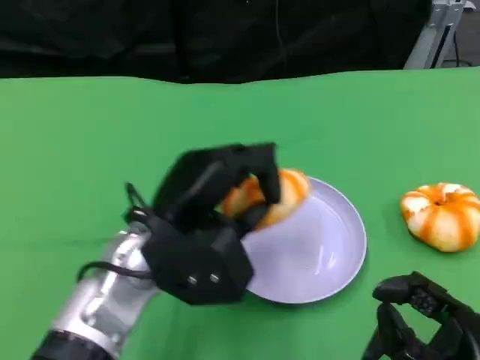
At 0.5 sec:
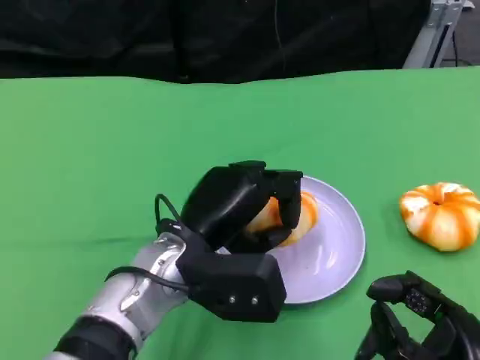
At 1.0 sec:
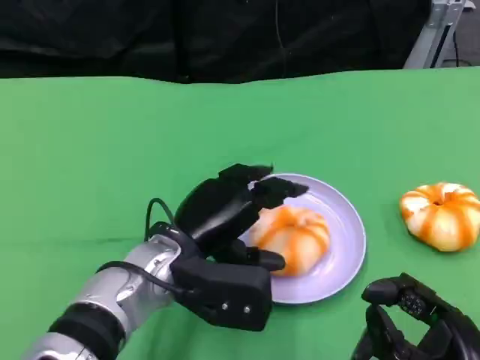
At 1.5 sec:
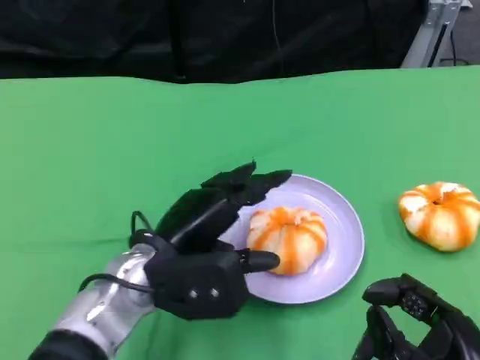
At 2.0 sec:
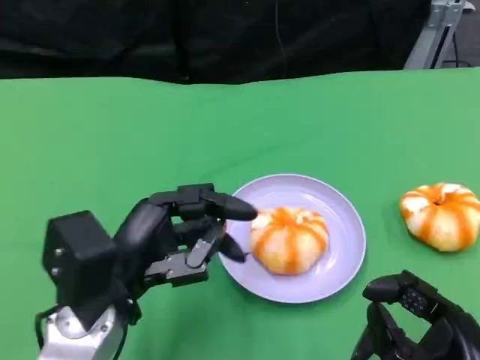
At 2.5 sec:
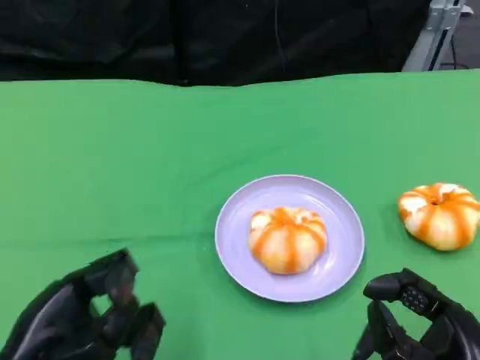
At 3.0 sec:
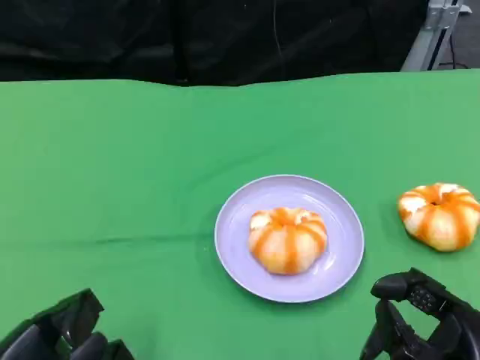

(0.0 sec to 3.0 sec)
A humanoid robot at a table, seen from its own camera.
Task of the whole recording: Grasp the bread from the table and place it into the plate.
0.0 sec - 1.5 sec: There are only small adjustments of the hands.
1.5 sec - 3.0 sec: The left hand shifts some 20 cm to the left and backward.

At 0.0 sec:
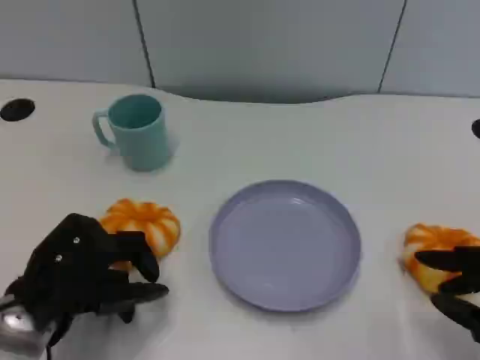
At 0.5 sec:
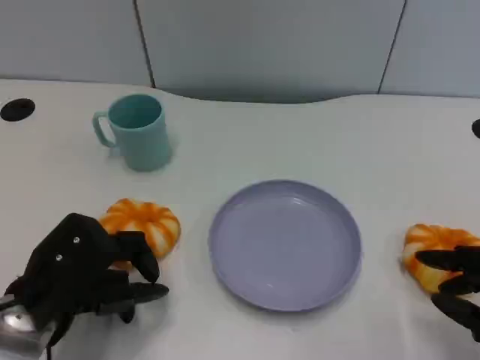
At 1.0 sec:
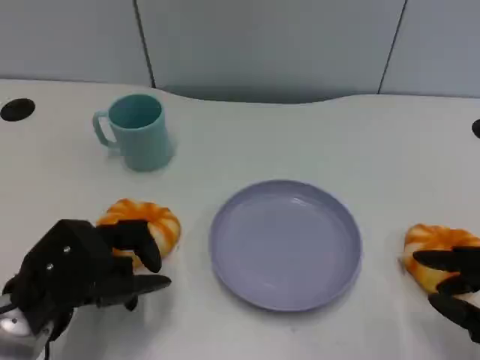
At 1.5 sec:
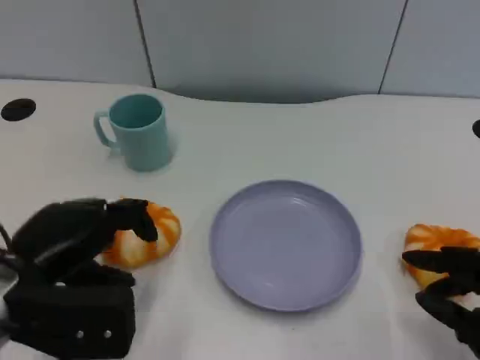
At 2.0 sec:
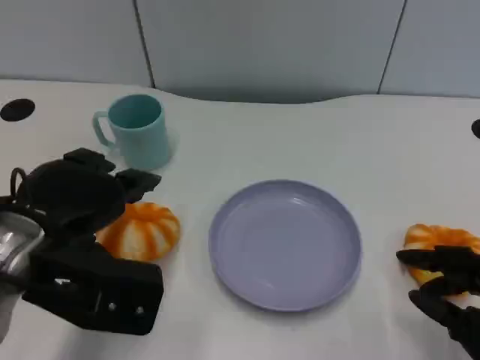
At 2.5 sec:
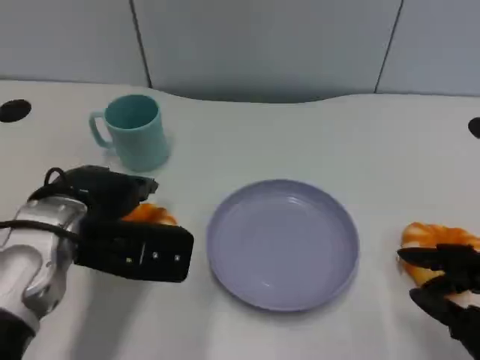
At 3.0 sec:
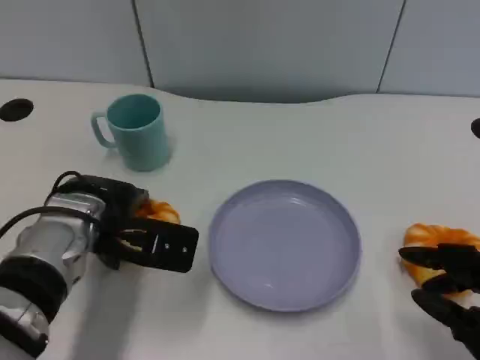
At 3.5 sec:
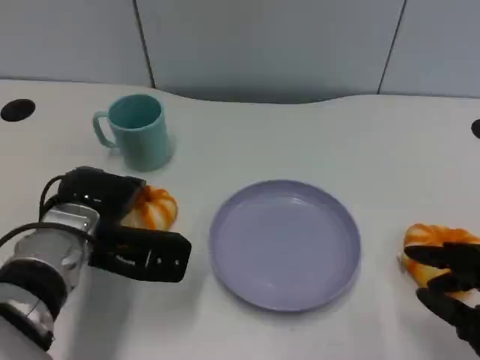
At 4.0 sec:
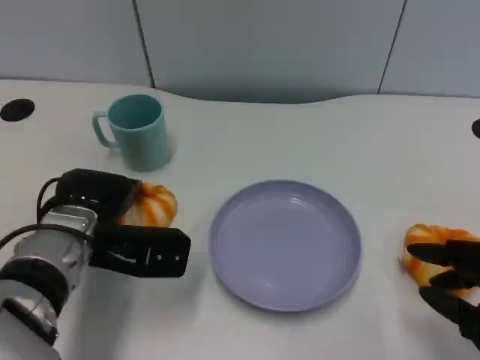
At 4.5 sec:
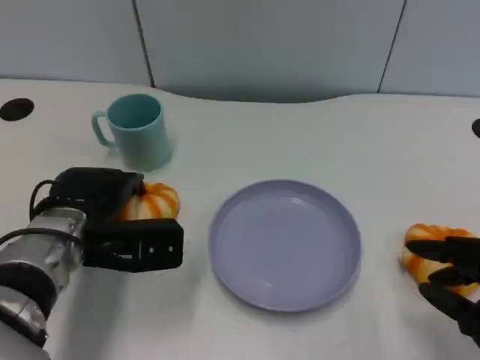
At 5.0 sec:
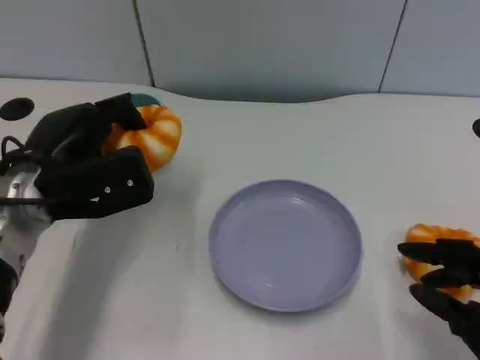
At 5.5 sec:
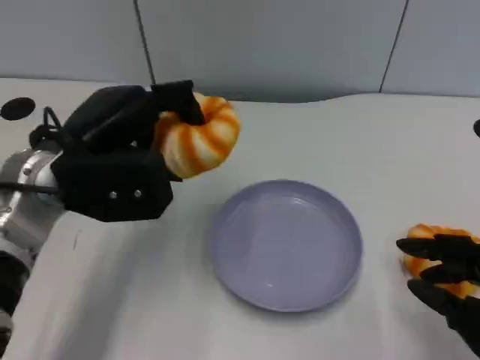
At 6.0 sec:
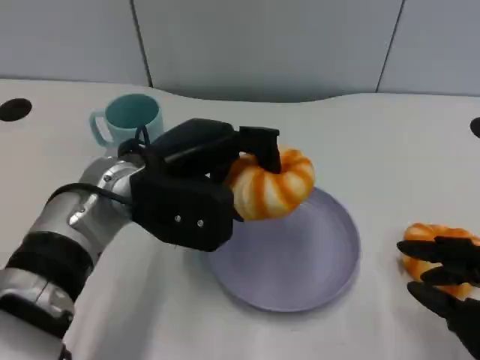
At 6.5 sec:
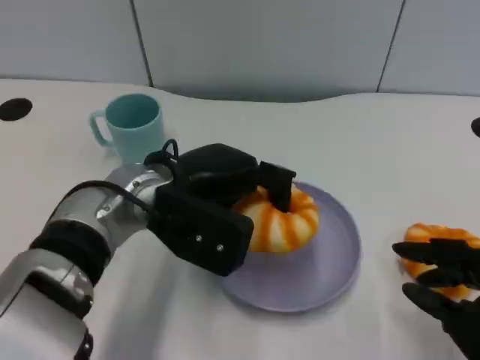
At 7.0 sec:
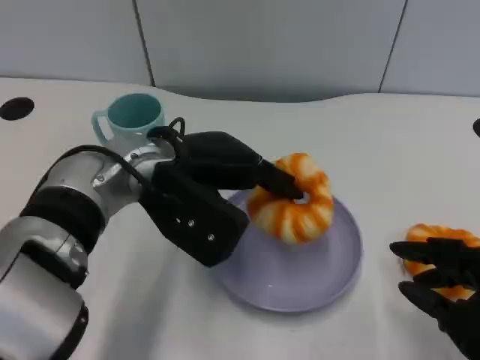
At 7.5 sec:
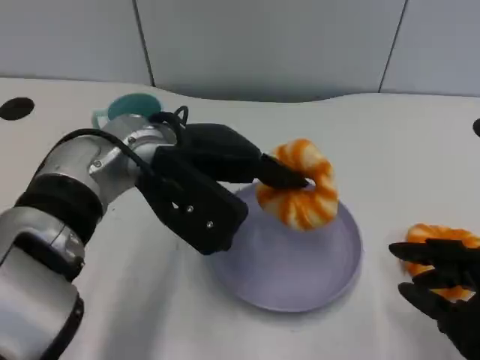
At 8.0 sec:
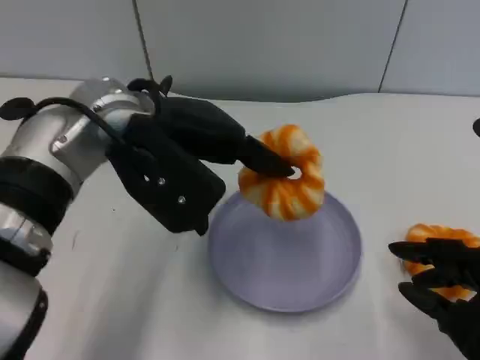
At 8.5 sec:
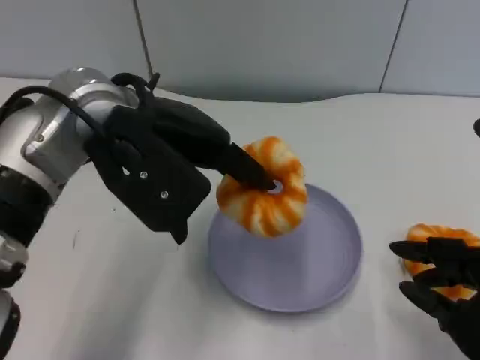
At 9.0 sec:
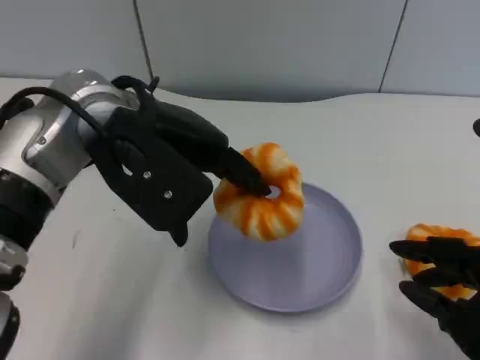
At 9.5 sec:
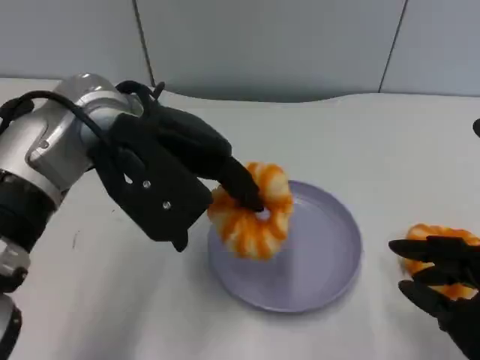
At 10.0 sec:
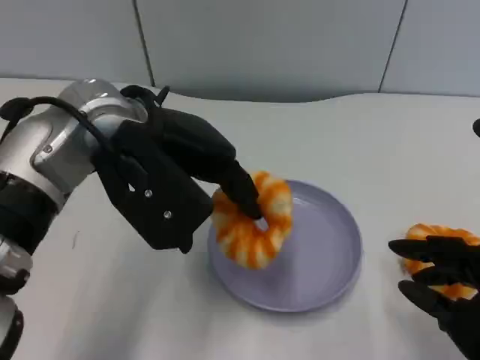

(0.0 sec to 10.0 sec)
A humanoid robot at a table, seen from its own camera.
Task of the whole recording: Grasp the bread from the table and place it into the plate.
0.0 sec - 2.0 sec: The left hand moves upward, approximately 10 cm.
2.0 sec - 4.0 sec: The left hand moves downward and forward, some 10 cm.
4.0 sec - 6.0 sec: The left hand travels upward and to the right by about 10 cm.
6.0 sec - 8.0 sec: The left hand shifts approximately 10 cm upward.
8.0 sec - 10.0 sec: The hands stay close to where they were, moving slightly.

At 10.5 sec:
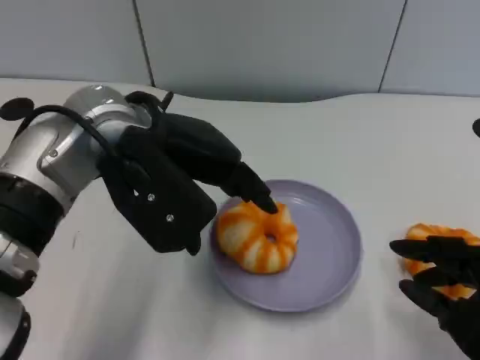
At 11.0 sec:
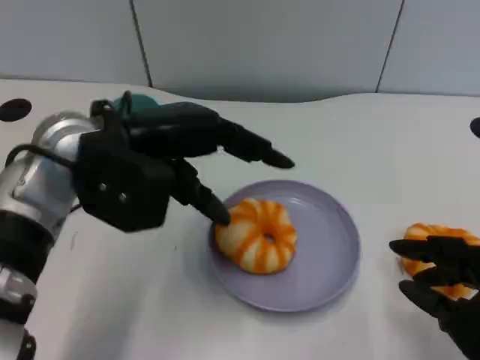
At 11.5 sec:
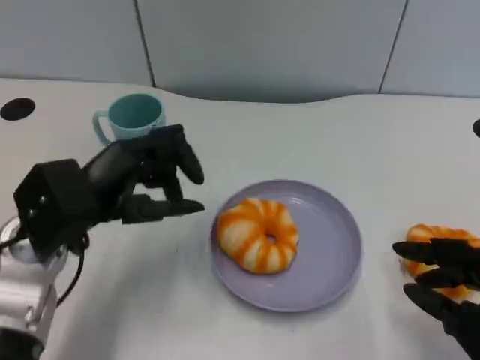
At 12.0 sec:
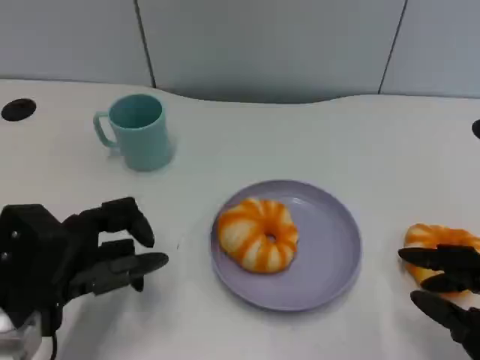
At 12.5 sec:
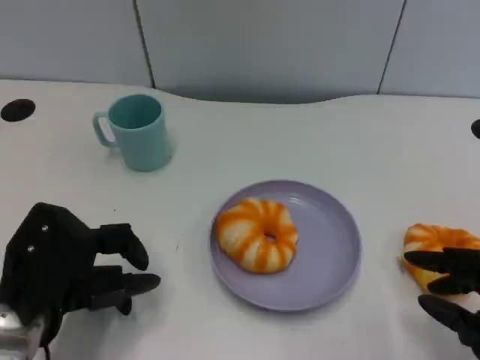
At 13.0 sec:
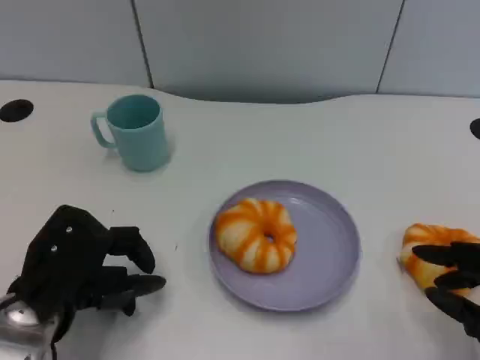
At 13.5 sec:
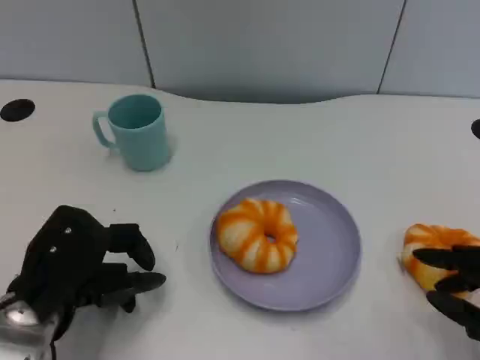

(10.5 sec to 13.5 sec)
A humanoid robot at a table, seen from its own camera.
Task of the whole recording: Grasp the bread from the table and place it into the plate.
10.5 sec - 12.0 sec: The left hand moves downward, to the left and backward, some 20 cm.
12.0 sec - 13.5 sec: The hands make only small movements.

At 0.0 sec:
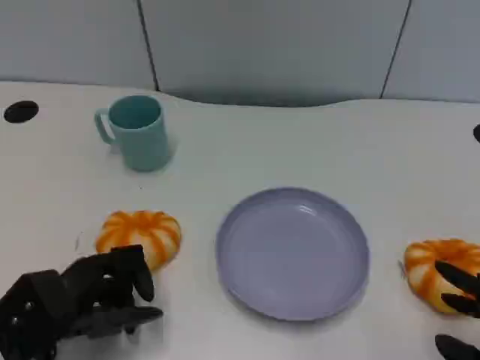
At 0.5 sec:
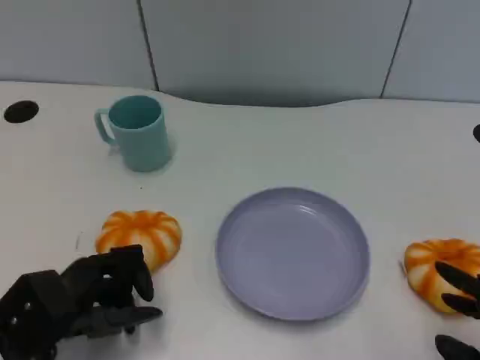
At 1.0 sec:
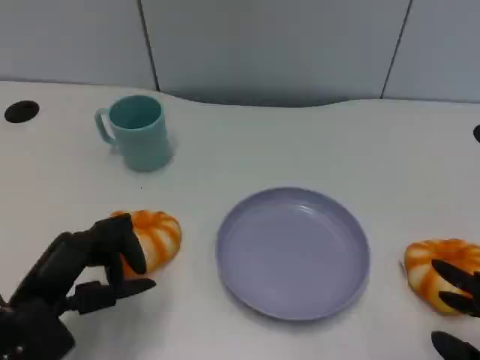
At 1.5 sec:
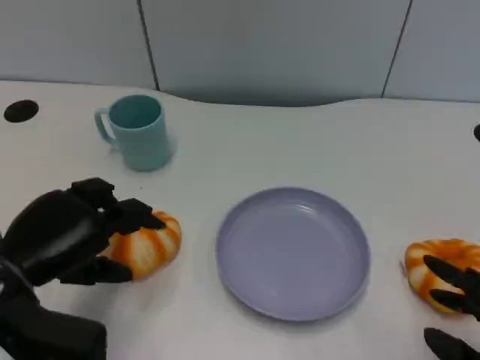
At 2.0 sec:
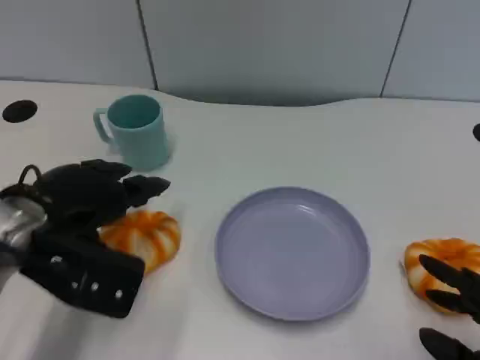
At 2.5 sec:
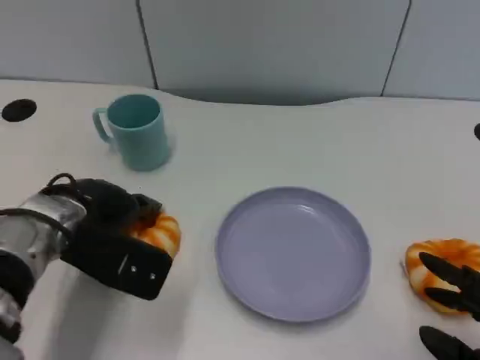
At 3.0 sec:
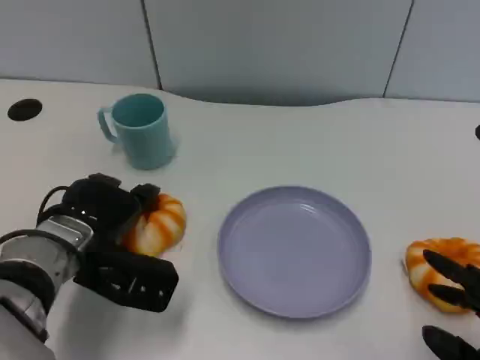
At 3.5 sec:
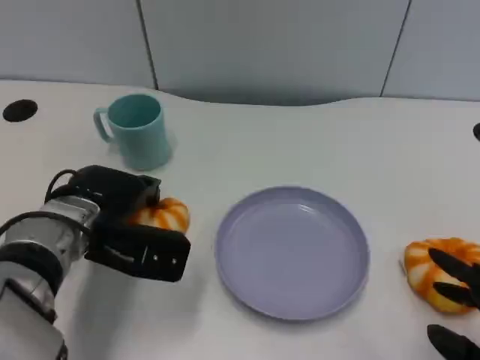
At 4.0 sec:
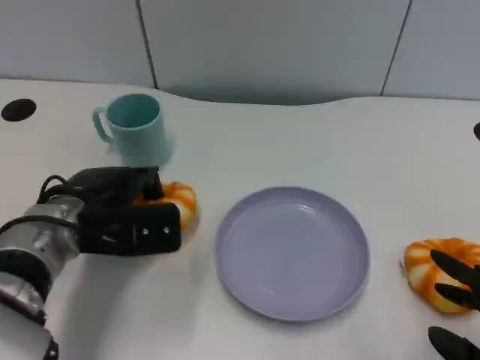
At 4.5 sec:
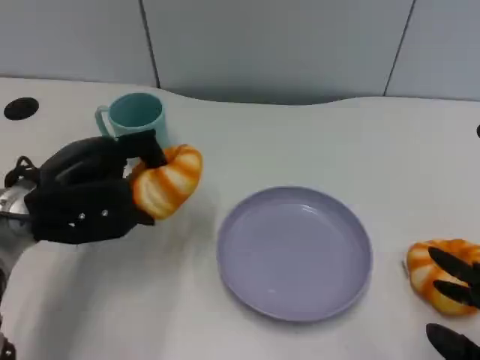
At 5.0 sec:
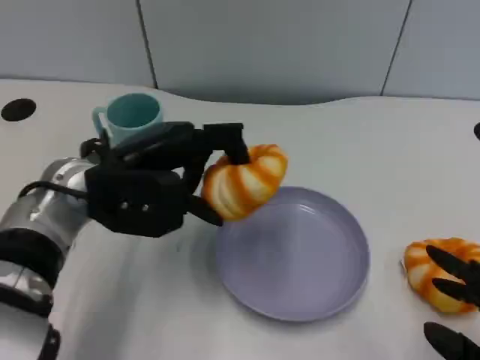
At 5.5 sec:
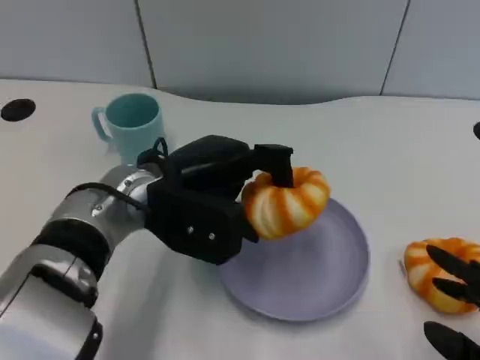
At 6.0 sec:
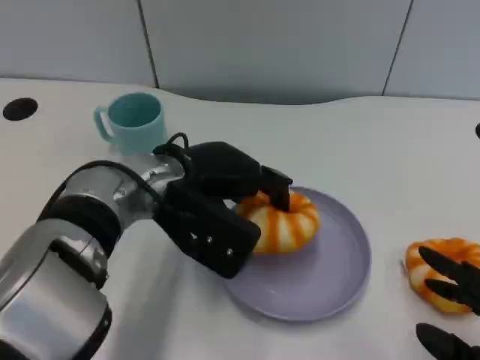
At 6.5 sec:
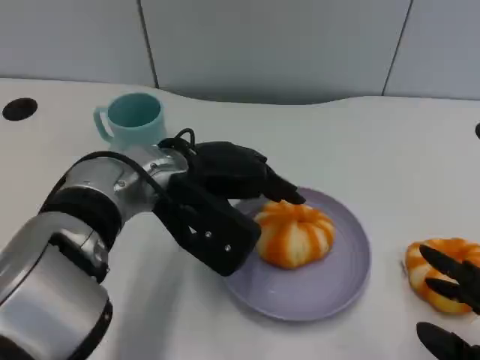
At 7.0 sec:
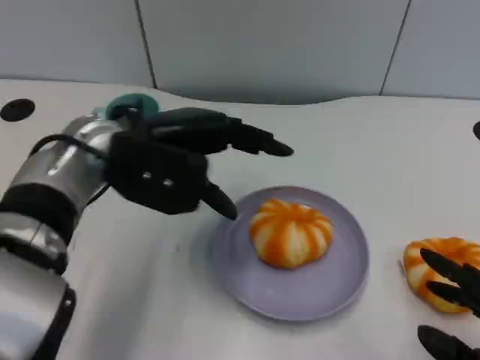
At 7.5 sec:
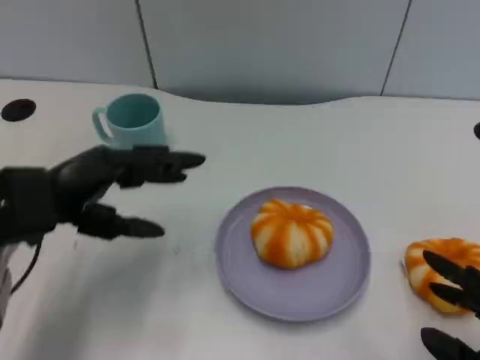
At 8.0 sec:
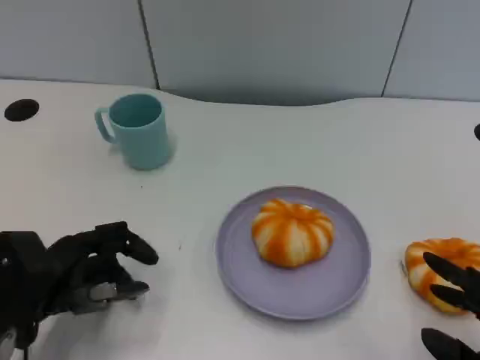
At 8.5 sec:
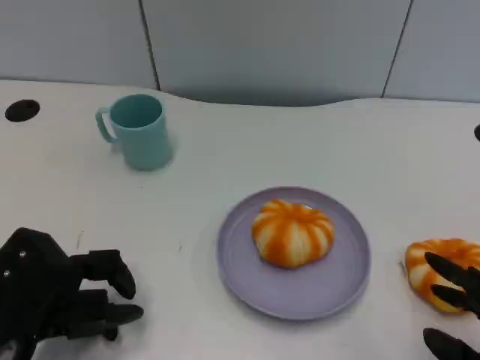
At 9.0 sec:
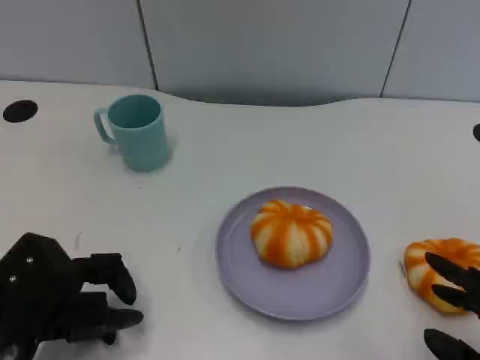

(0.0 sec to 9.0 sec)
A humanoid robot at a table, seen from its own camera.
Task of the whole recording: Grasp the bread from the table and place it into the plate.
0.0 sec - 2.0 sec: The left hand goes some 15 cm upward and forward.
4.5 sec - 7.0 sec: The left hand moves to the right, approximately 5 cm.
7.0 sec - 9.0 sec: The left hand travels backward, downward and to the left by roughly 20 cm.
